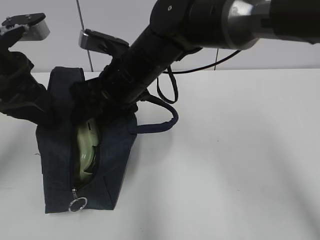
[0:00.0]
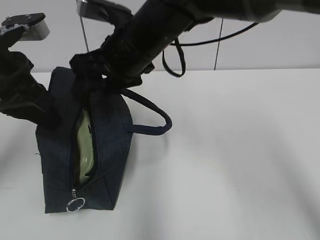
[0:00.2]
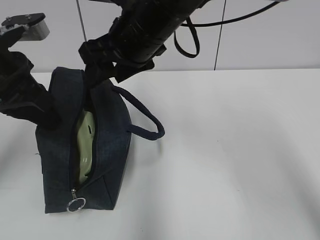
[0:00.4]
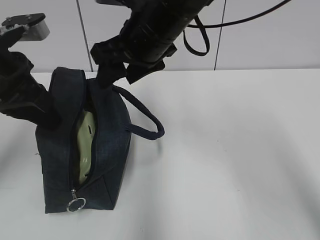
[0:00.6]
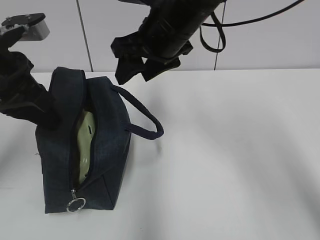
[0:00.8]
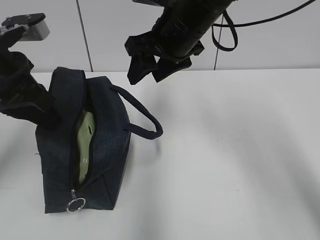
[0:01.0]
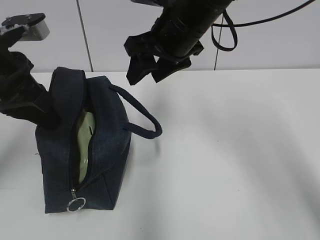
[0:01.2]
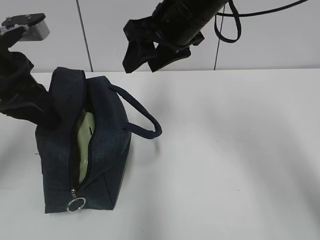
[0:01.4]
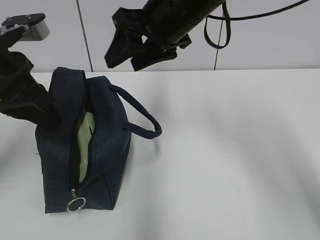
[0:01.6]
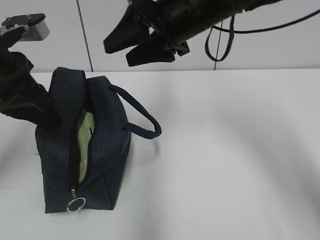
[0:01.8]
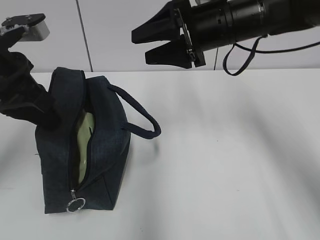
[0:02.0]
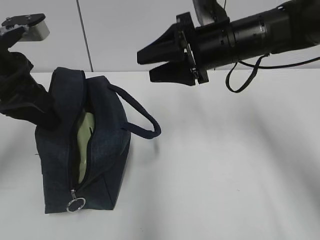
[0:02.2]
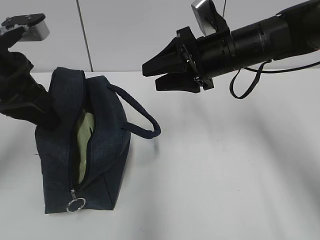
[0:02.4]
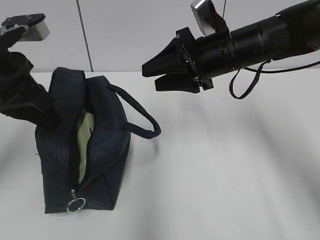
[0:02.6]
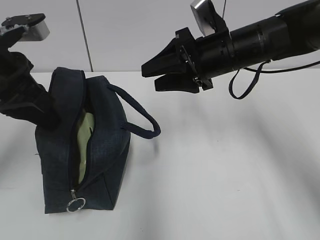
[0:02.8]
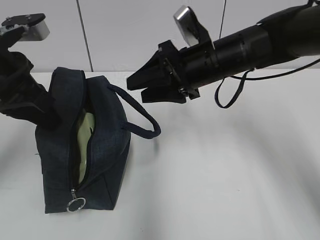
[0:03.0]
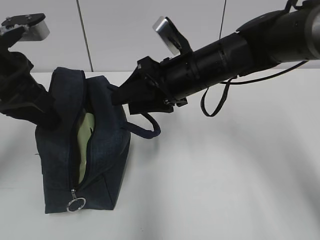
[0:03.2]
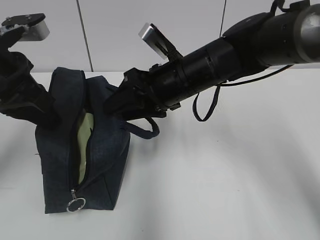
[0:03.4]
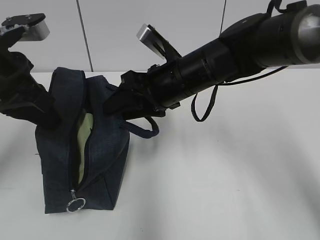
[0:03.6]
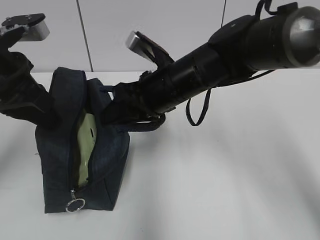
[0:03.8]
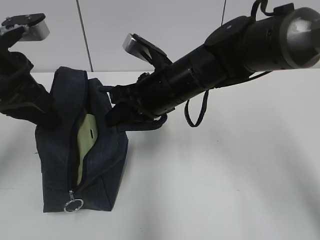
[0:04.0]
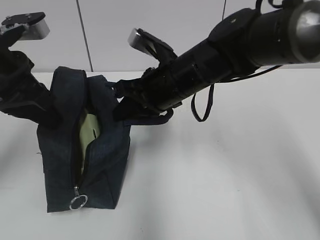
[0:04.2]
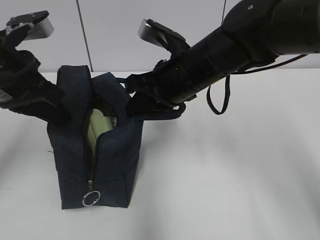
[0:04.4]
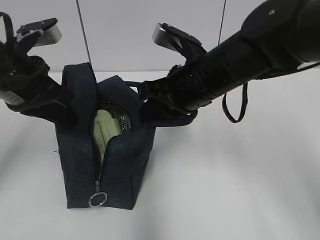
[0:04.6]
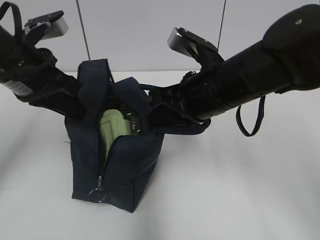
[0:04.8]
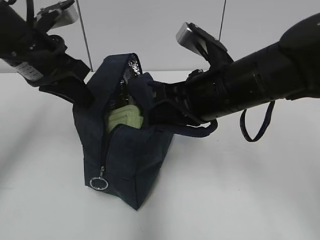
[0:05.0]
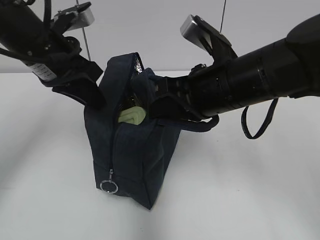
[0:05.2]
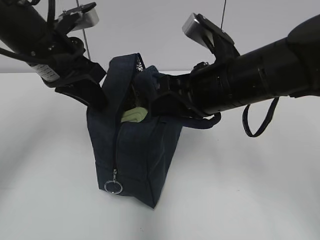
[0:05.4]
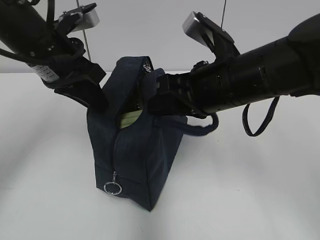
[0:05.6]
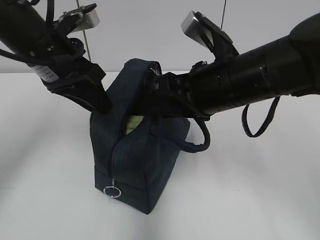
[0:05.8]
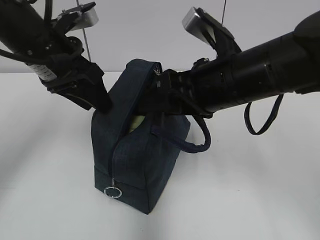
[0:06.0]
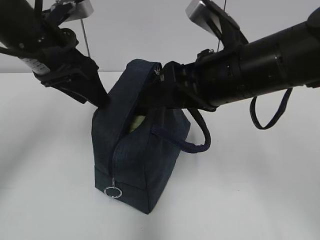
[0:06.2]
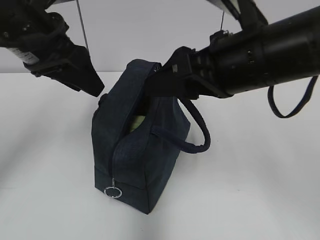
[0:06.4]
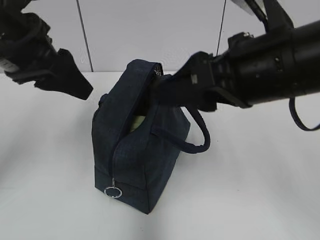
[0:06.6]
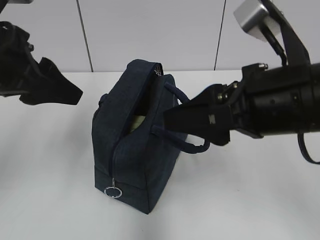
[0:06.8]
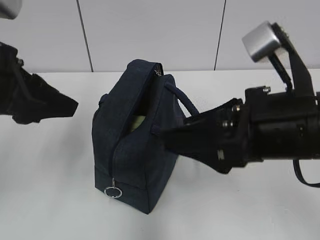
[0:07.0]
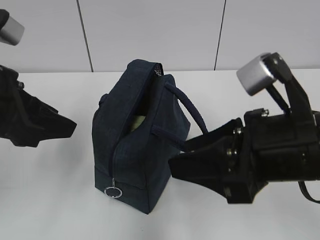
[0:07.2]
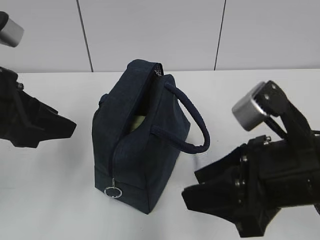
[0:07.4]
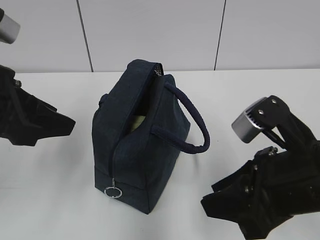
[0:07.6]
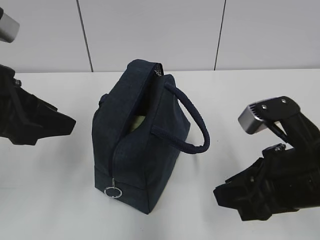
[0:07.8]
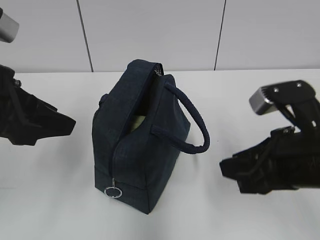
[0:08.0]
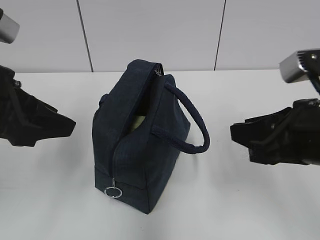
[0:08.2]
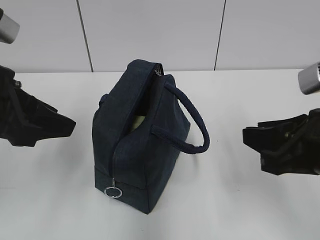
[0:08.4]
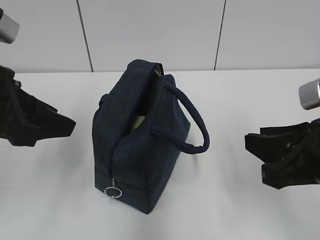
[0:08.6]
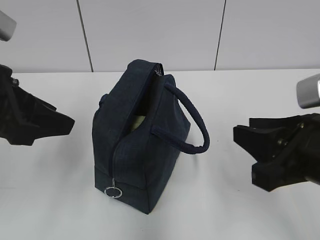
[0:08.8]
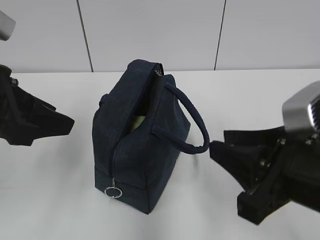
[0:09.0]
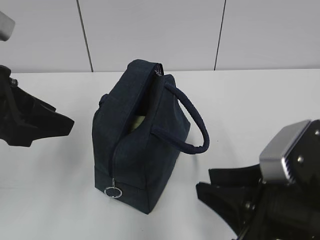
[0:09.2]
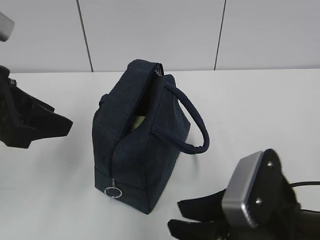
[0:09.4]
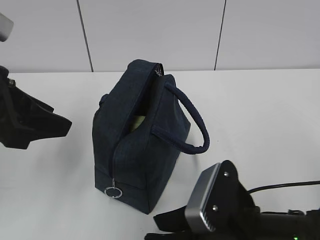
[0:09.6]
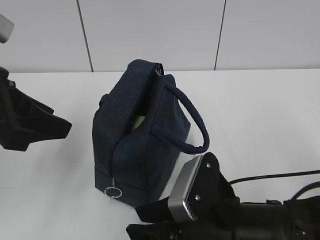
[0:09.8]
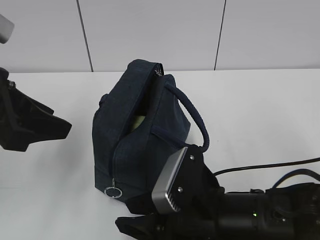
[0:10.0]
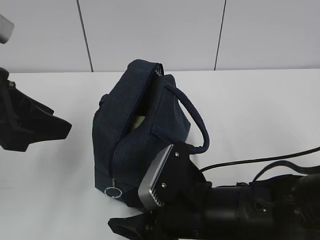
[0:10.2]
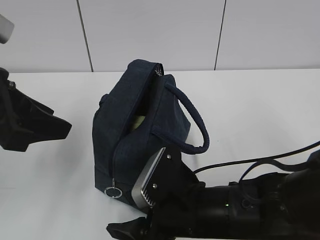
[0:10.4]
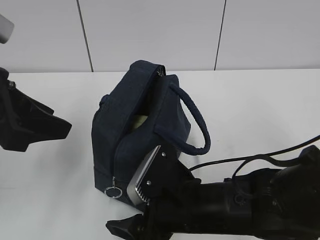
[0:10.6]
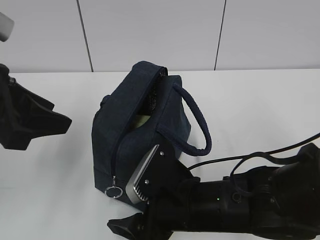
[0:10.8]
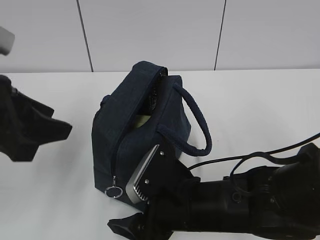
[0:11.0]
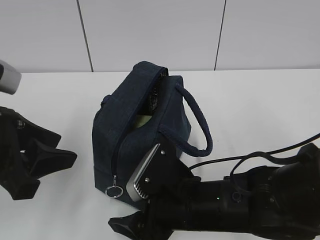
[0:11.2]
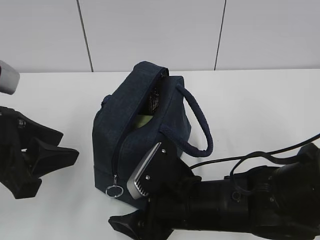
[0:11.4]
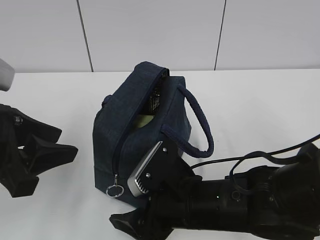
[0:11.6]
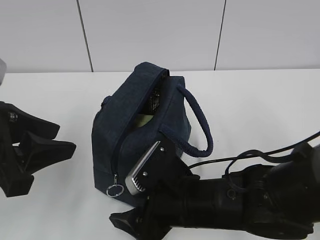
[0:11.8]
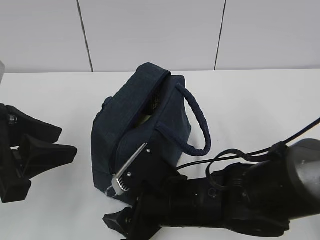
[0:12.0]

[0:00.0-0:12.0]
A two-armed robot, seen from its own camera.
0:00.0 to 0:01.6: The right gripper is displaced upward and to the right by approximately 10 cm.
0:01.6 to 0:03.0: The right gripper is displaced downward by about 10 cm.
0:03.0 to 0:04.4: The right gripper shifts by roughly 5 cm, and closes its fingers.
0:04.4 to 0:06.0: The left gripper moves about 5 cm, and opens up, while the right gripper moves backward, roughly 5 cm, and opens up.
0:06.0 to 0:07.6: The left gripper moves backward, some 10 cm; the right gripper goes some 10 cm backward and to the right.
0:09.0 to 0:10.4: The right gripper goes some 15 cm downward, to the left and forward, and opens up.

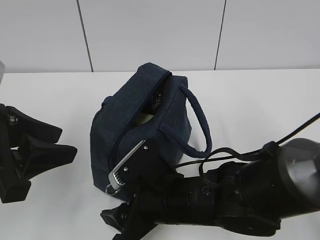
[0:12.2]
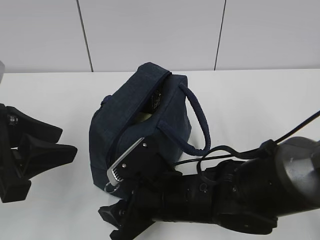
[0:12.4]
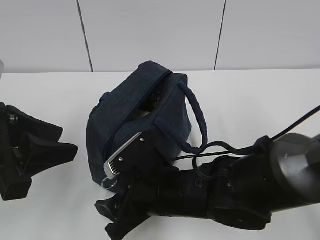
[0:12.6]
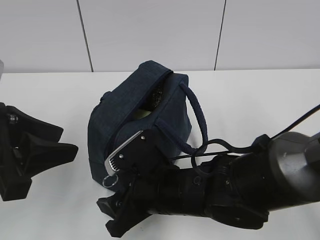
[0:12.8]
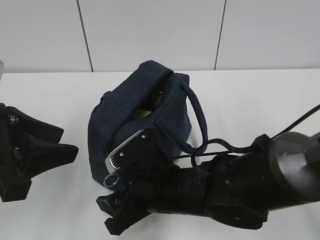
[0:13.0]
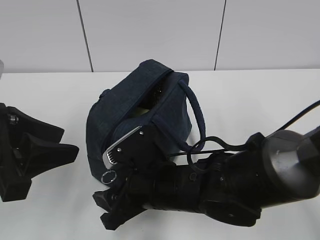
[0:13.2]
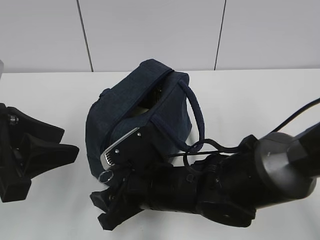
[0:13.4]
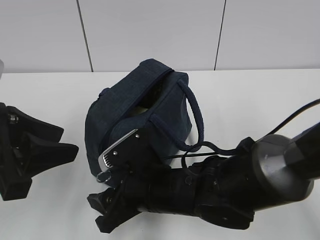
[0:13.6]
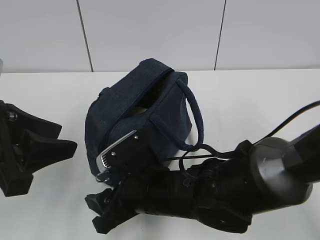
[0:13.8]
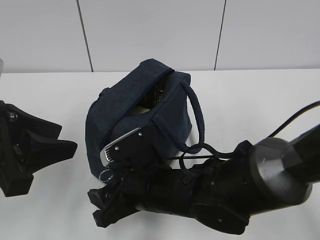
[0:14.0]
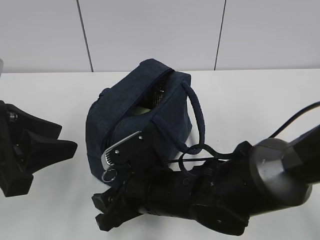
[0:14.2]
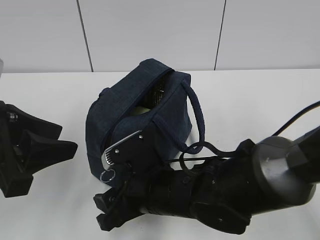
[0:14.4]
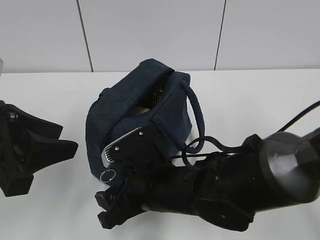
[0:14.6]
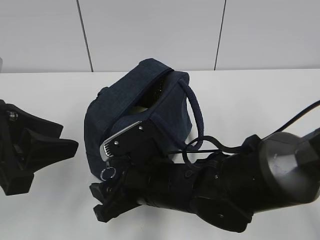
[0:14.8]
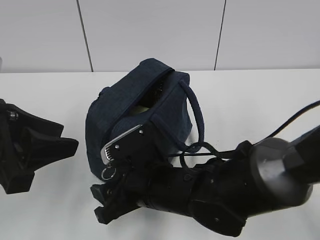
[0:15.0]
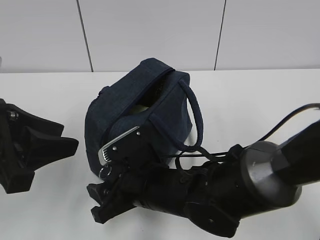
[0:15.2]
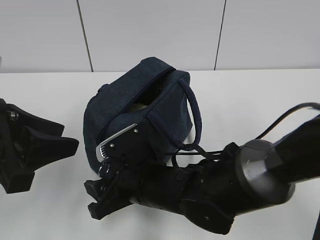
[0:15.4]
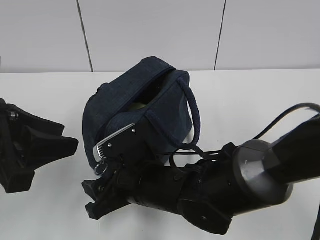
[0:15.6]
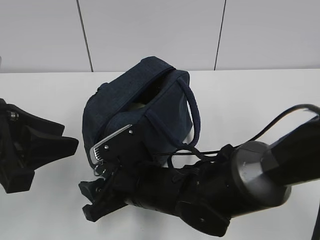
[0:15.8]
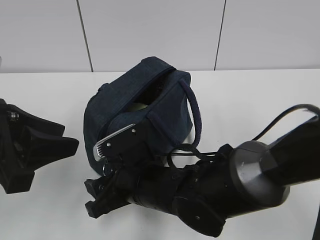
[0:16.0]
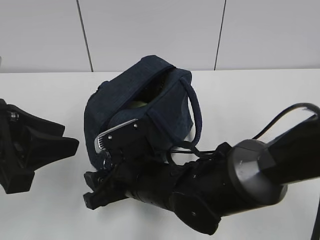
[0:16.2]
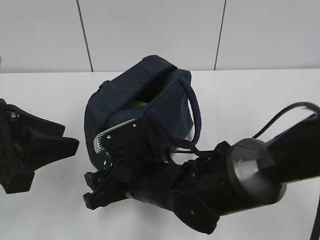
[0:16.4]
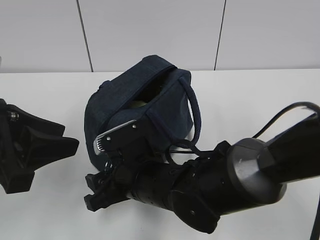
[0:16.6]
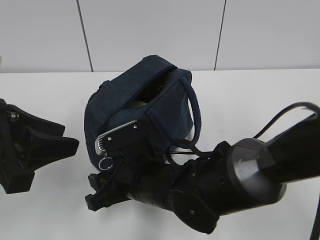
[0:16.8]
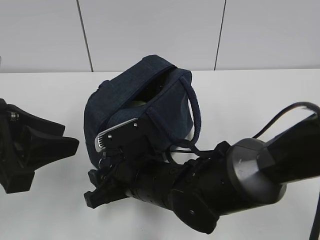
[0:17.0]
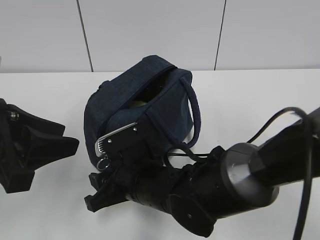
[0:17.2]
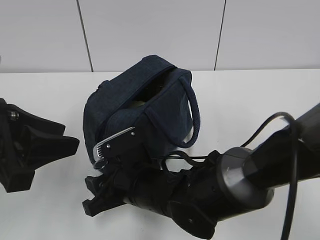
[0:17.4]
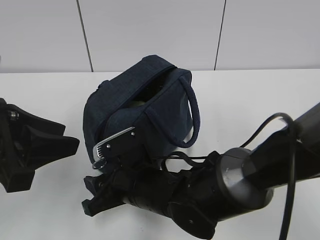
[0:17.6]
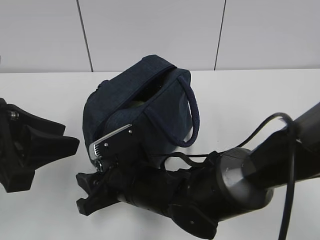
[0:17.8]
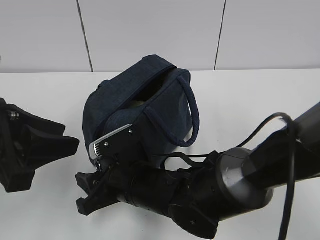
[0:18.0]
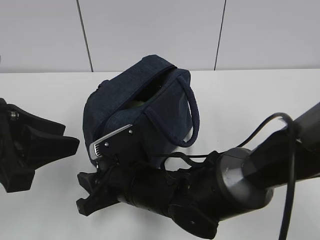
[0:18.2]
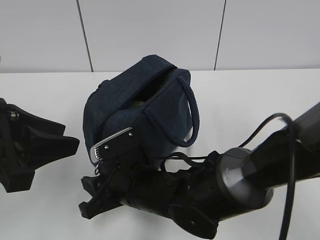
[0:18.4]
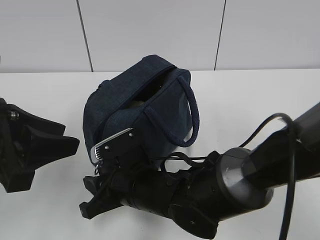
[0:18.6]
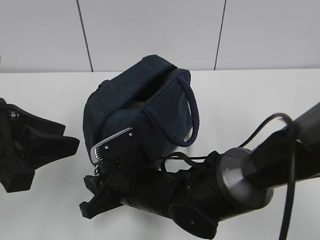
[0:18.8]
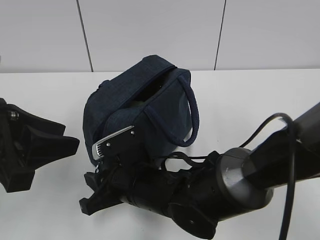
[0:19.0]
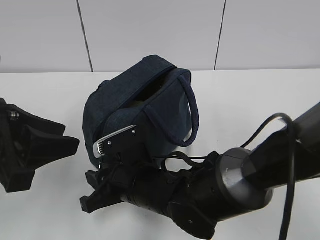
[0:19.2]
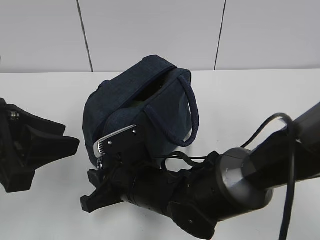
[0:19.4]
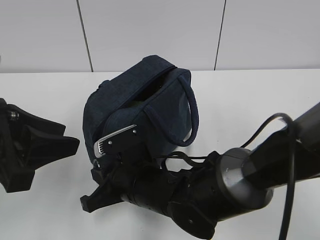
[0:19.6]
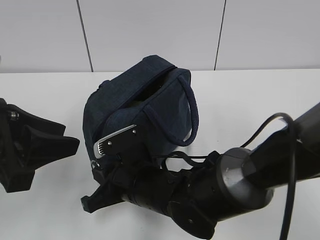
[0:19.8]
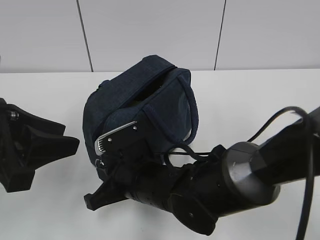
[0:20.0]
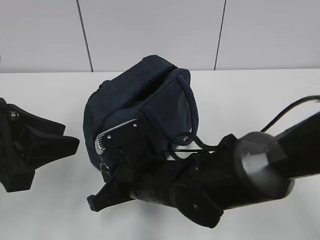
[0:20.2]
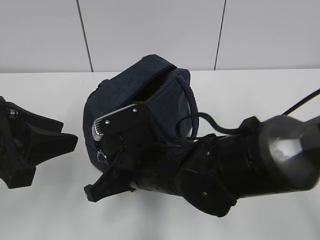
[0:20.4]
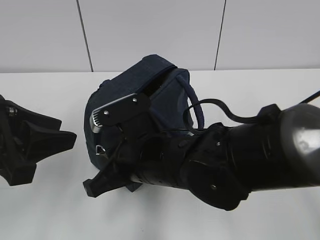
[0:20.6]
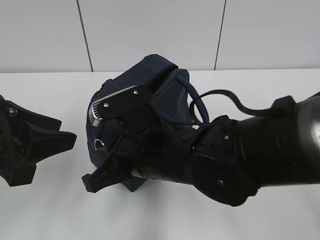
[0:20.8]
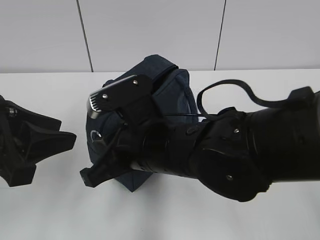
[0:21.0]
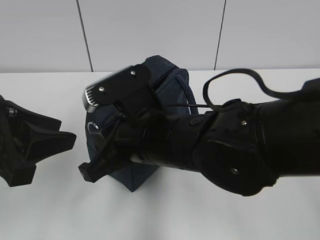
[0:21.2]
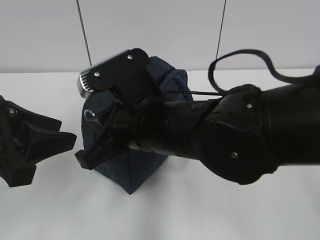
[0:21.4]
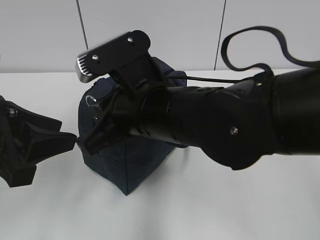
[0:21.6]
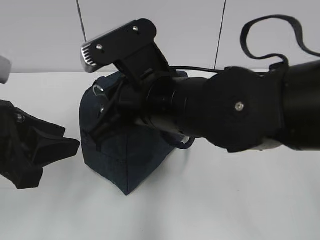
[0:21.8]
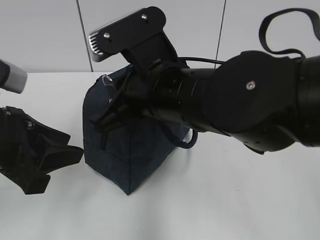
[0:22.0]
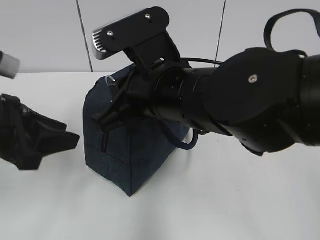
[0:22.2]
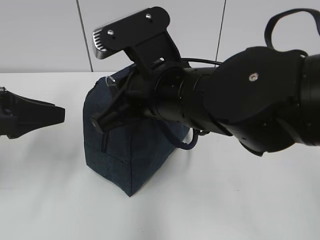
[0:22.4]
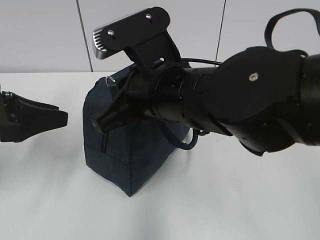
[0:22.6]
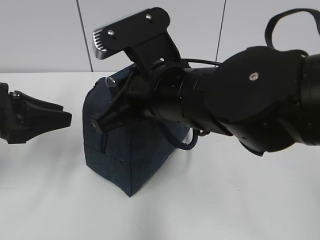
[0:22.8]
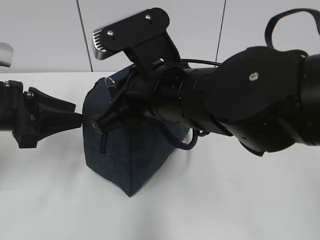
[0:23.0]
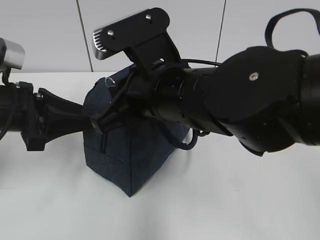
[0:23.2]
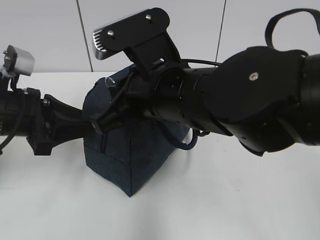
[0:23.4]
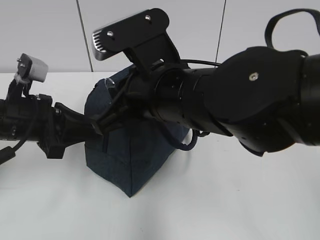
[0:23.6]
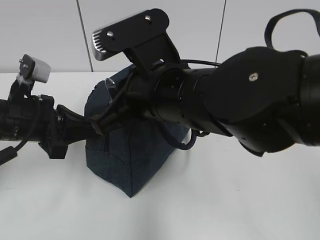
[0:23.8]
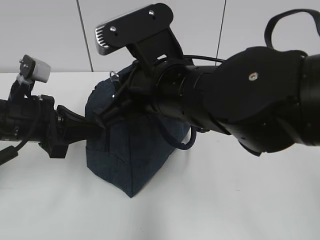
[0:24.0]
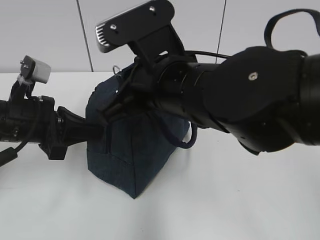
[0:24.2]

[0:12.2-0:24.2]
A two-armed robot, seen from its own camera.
0:12.2 to 0:18.2: There are only small adjustments of the grippers.
0:18.2 to 0:19.8: The right gripper closes.
0:19.8 to 0:21.2: The right gripper travels upward by approximately 10 cm.
0:21.2 to 0:22.6: The right gripper is displaced upward by approximately 5 cm. Meanwhile the left gripper shifts some 5 cm forward.
0:22.6 to 0:24.2: The left gripper shifts by roughly 5 cm, and closes.
